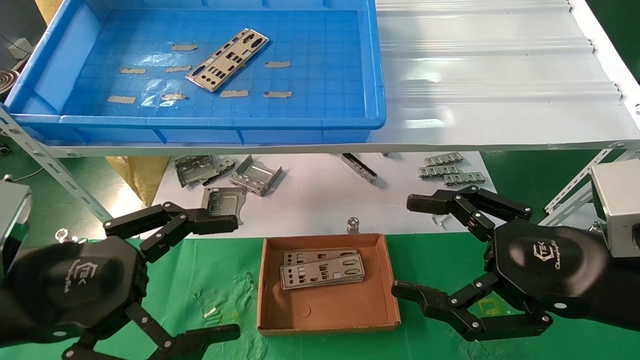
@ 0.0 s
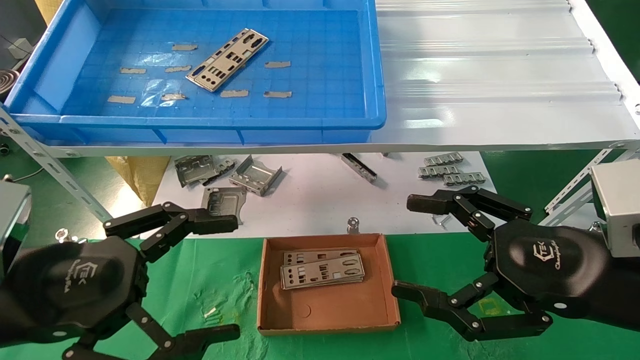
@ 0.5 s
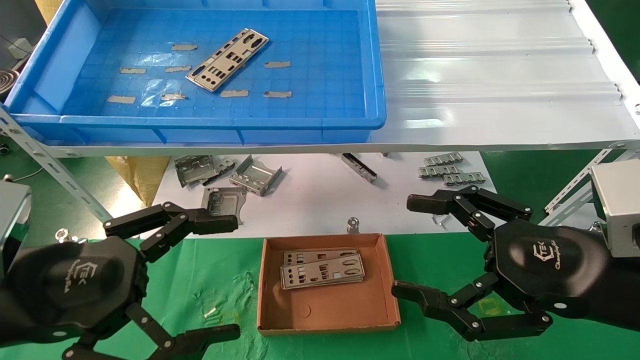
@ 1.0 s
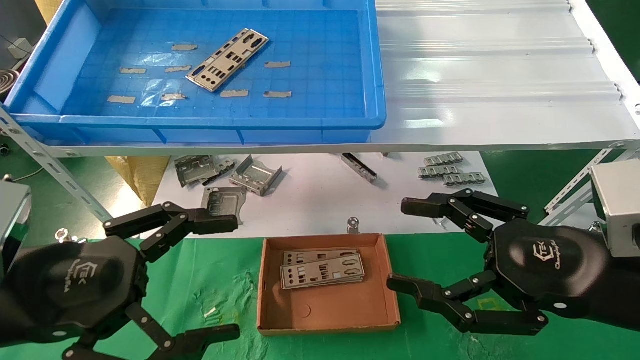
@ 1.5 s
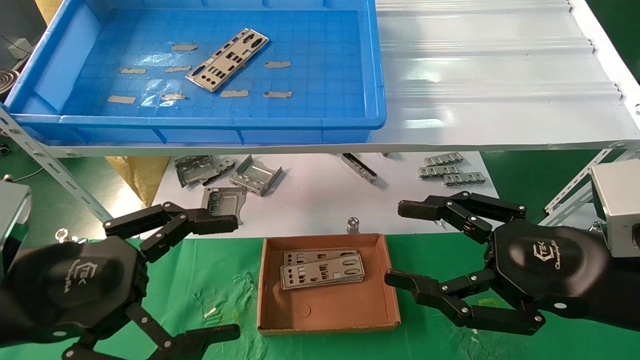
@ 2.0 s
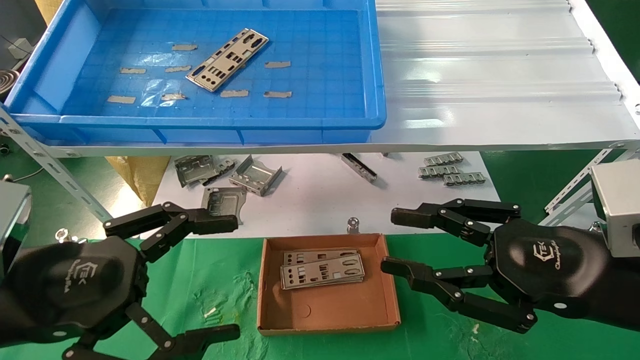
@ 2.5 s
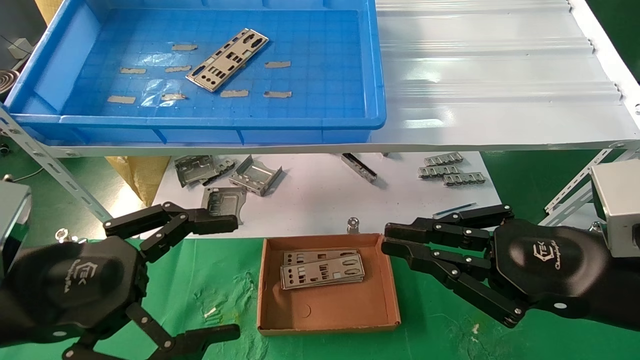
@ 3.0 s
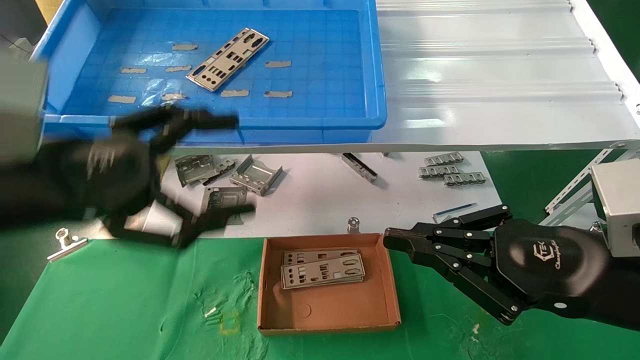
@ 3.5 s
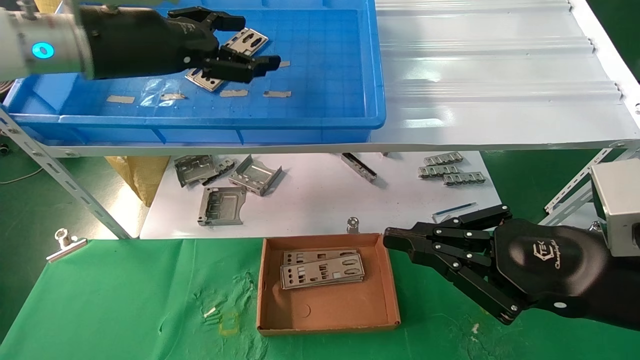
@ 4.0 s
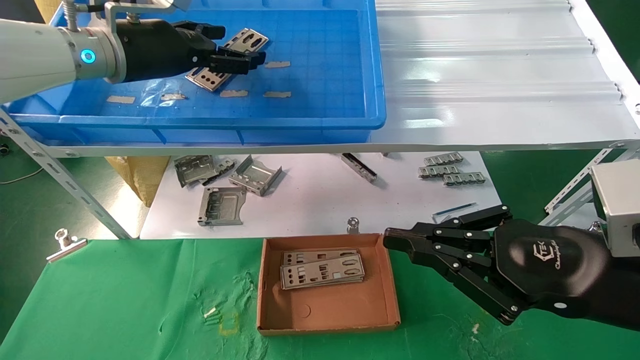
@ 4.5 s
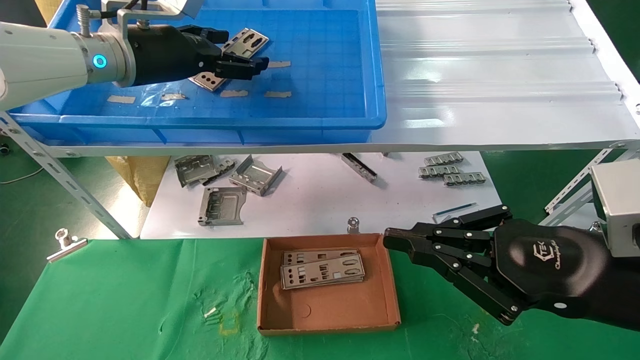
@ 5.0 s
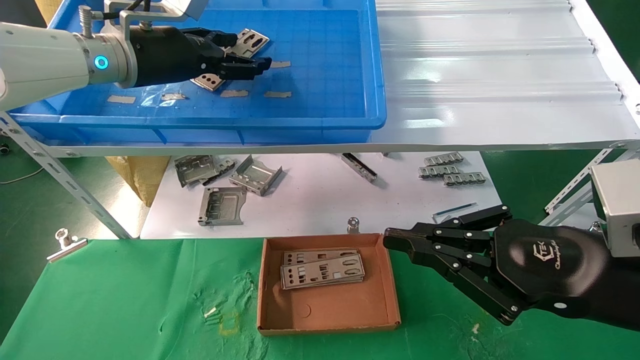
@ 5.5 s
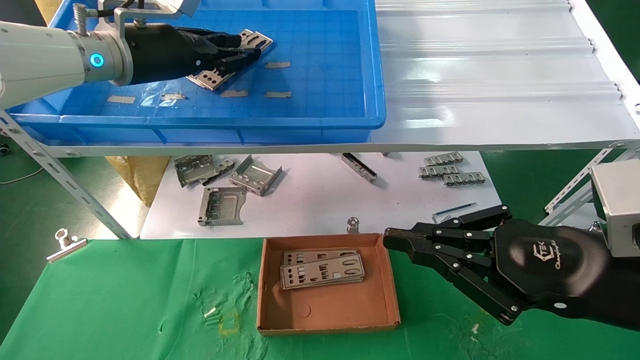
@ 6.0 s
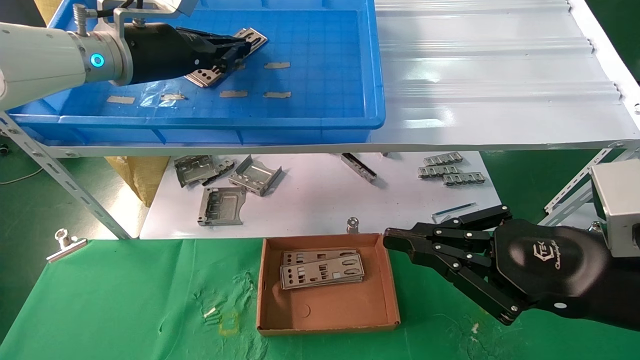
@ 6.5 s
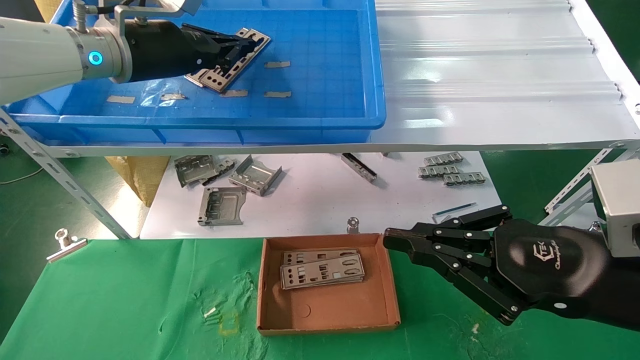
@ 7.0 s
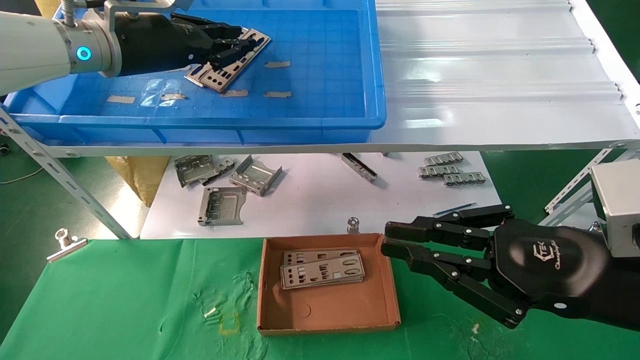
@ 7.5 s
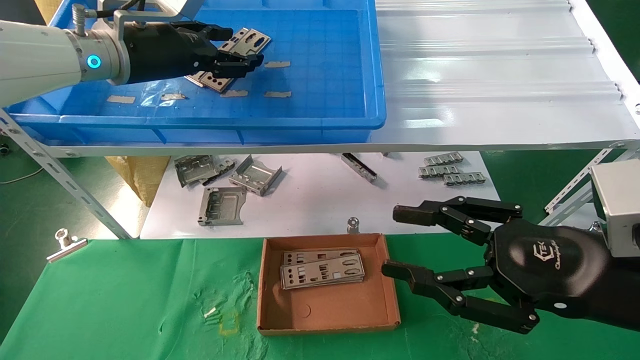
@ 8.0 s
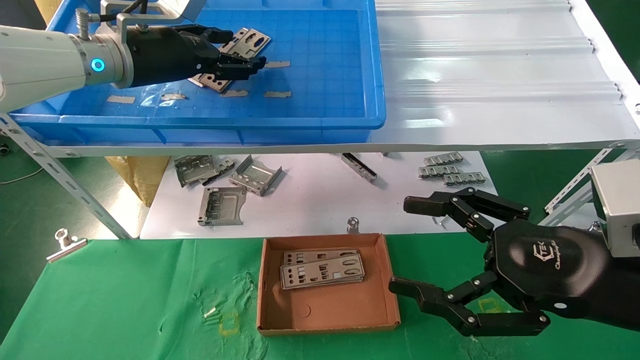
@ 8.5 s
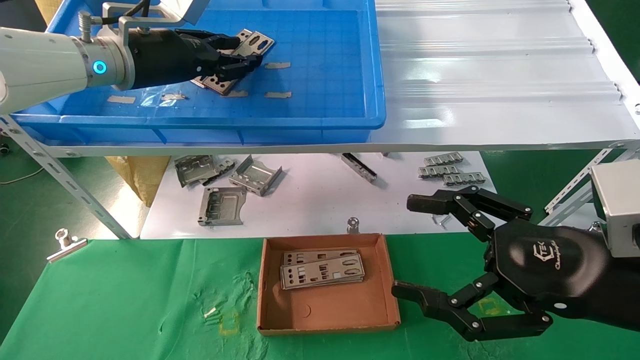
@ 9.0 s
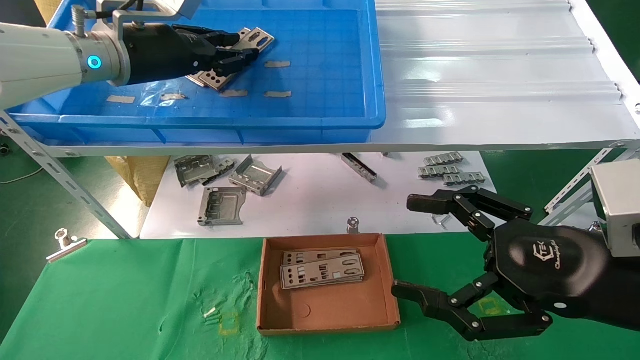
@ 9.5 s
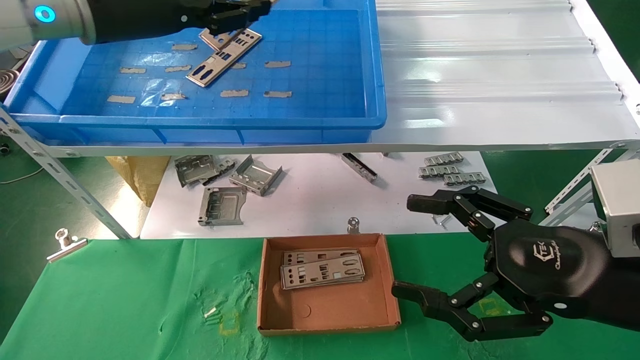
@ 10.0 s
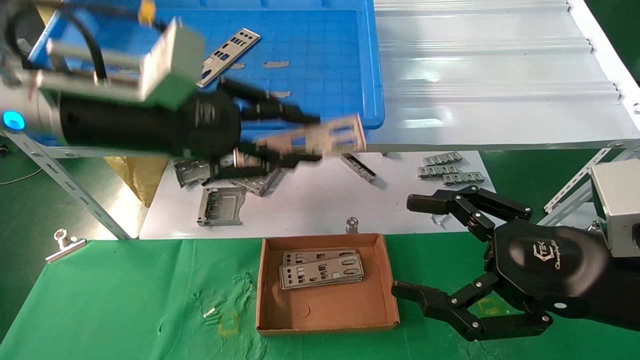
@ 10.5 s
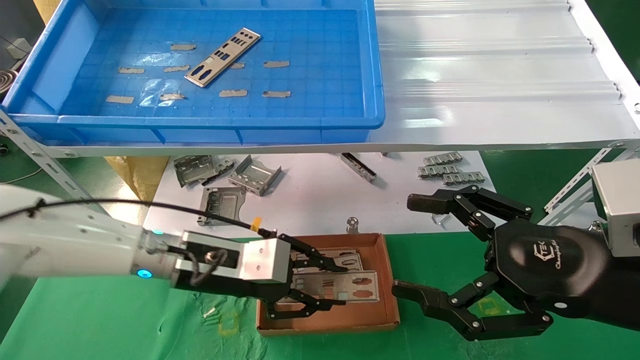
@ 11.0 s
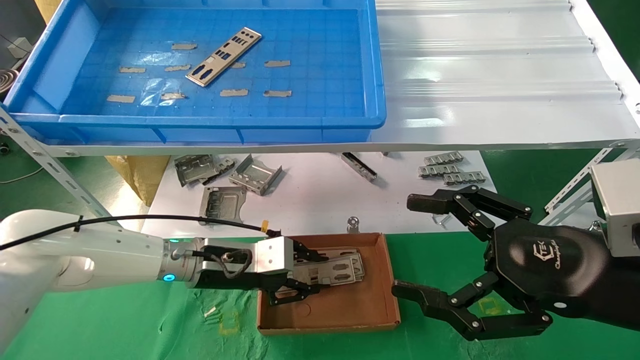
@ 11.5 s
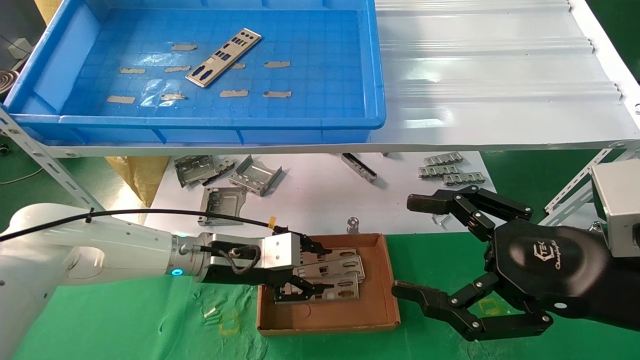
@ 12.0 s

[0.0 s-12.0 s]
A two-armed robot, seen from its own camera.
Task of the whole recording: pick up the parts on the tray and put them in the cardboard box.
Step, 4.0 to 9.0 s: Pick up the IO bracket from the container box.
Step, 9.5 to 12.0 s: Place the IO bracket into the ingredient slot.
0.0 to 2.0 s: Neither gripper changes place.
2.0 to 4.0 s: The right gripper closes. The left gripper shifts some 25 cm upward and forward.
4.0 to 6.0 s: The left gripper goes some 5 cm forward, and closes its fingers.
6.0 to 8.0 s: The right gripper opens its fingers, while the left gripper closes and opens again.
8.0 to 10.0 s: The right gripper opens its fingers; the left gripper is displaced backward by approximately 5 cm.
10.0 to 12.0 s: The left gripper shifts approximately 30 cm downward.

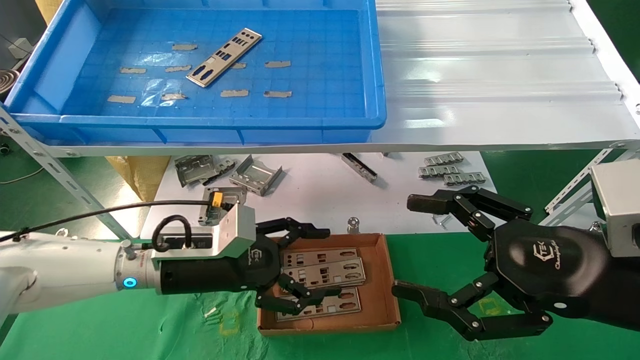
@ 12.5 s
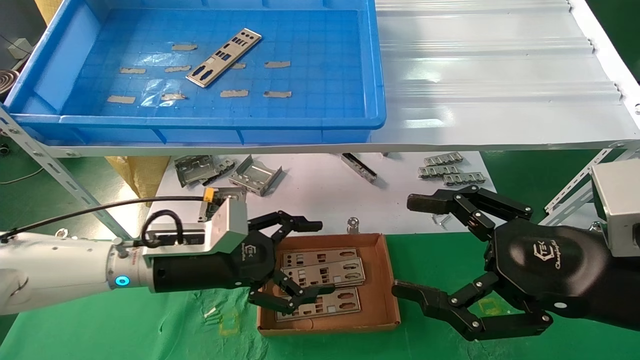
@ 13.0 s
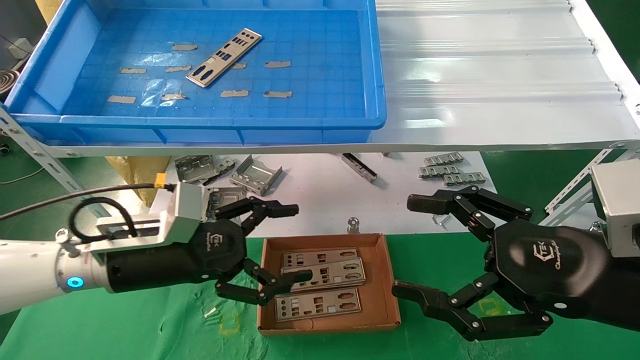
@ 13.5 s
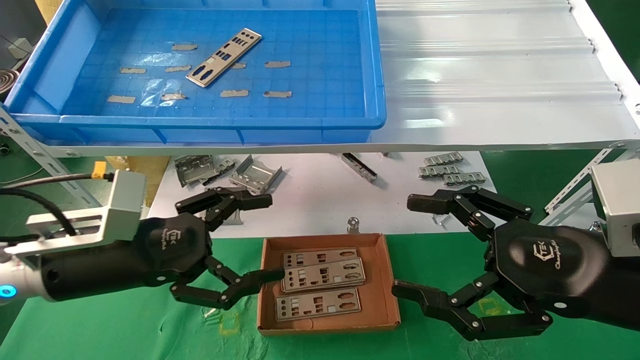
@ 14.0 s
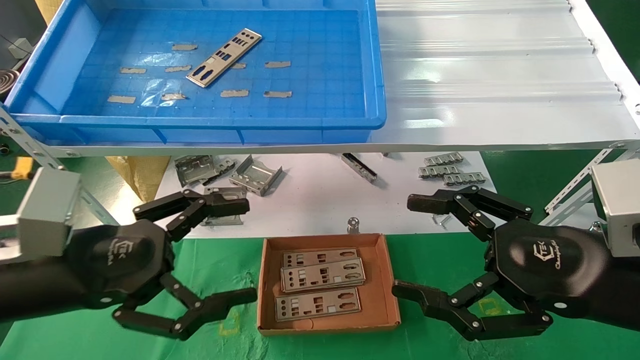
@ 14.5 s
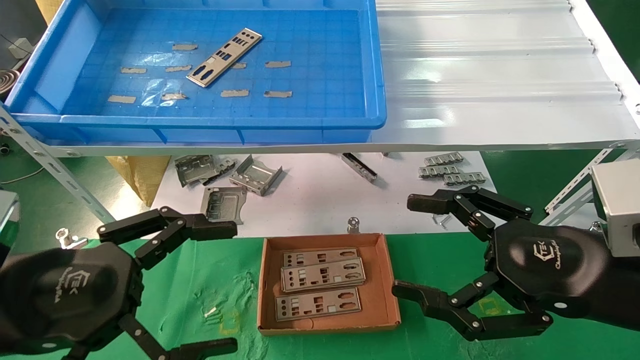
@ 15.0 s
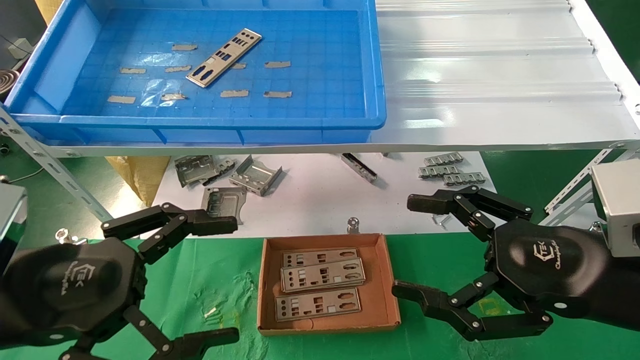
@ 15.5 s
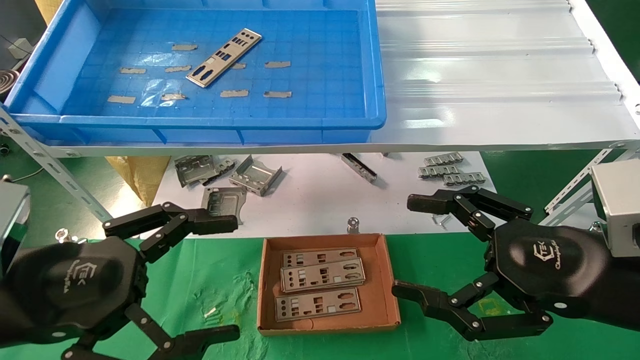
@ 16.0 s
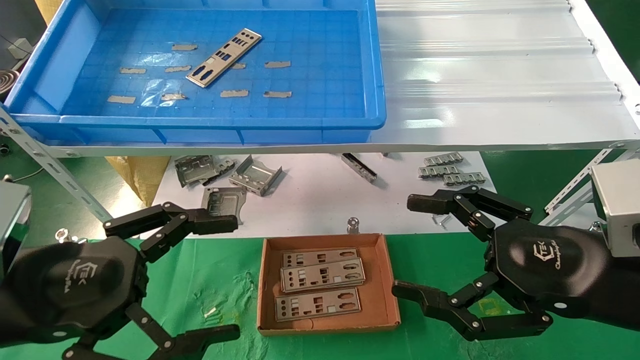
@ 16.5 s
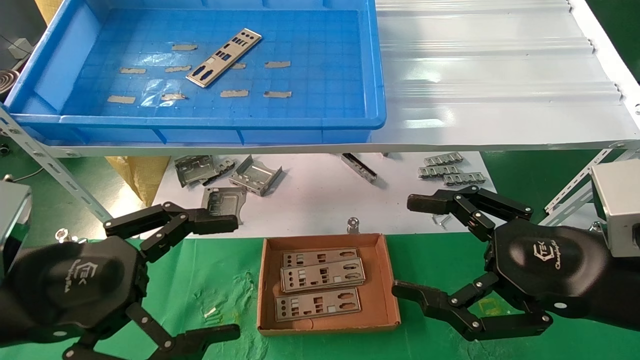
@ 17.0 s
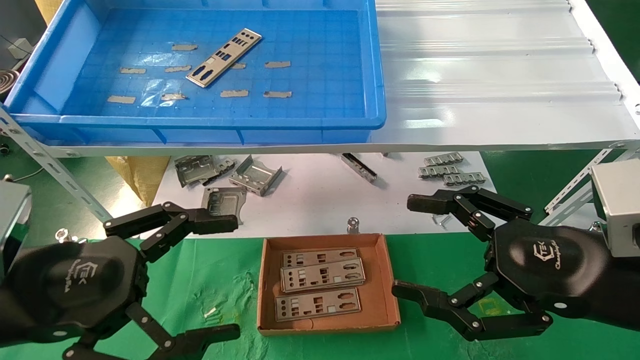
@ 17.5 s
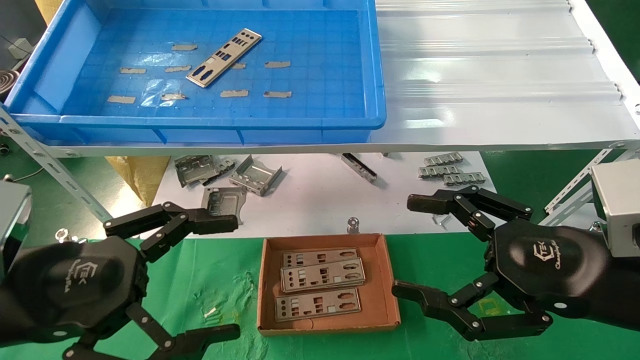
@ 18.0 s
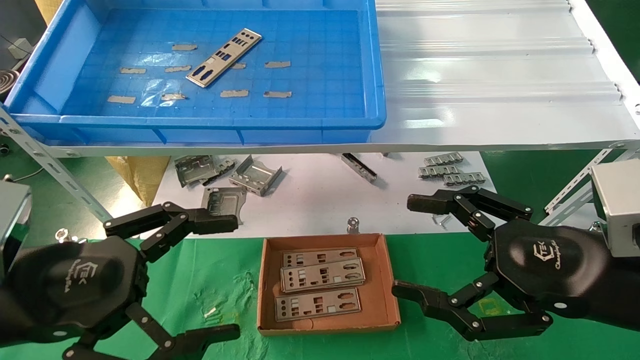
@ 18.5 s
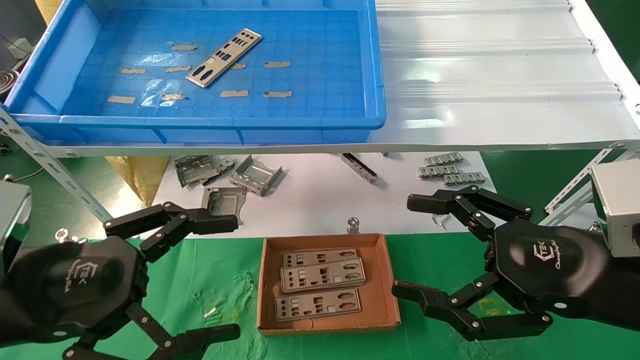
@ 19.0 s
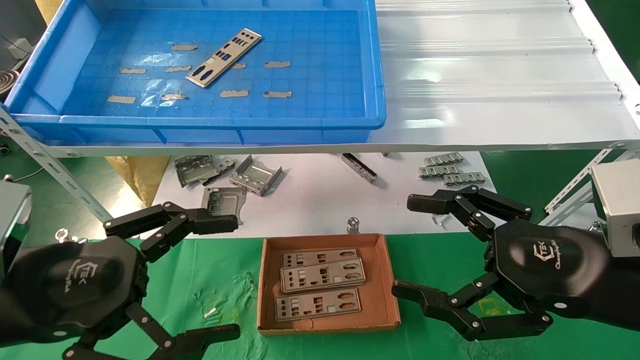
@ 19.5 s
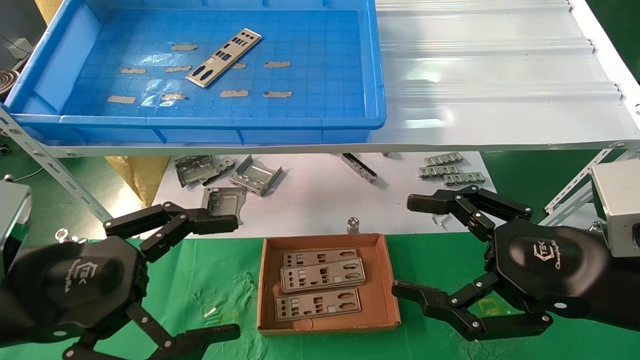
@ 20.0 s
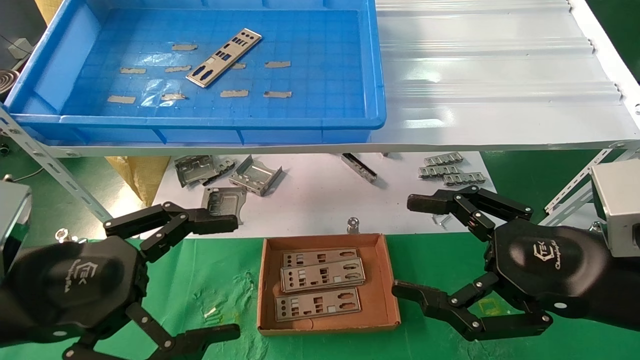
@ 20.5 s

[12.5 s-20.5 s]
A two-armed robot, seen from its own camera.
Task of the whole recording: pick up the parts on the tray and put them in the cardboard box.
12.5 to 14.5 s: The left gripper travels backward, to the left and upward by some 20 cm.
14.5 to 16.5 s: The grippers make only small movements.
16.5 to 20.5 s: Both grippers stay put.
